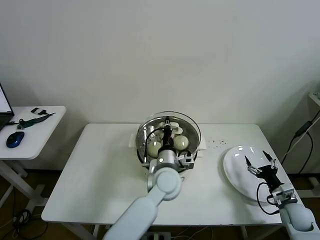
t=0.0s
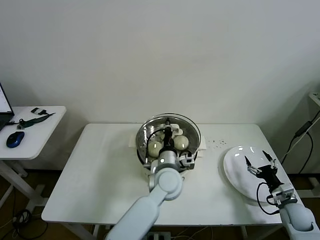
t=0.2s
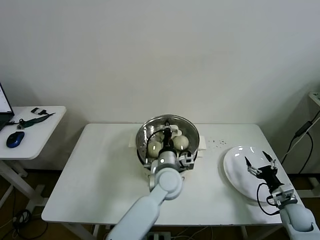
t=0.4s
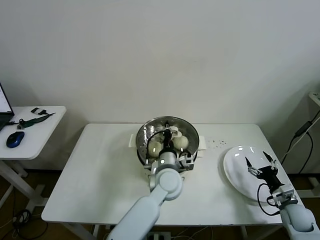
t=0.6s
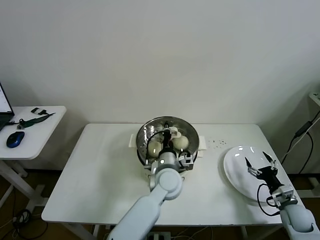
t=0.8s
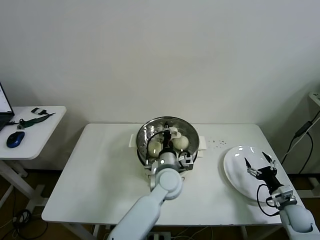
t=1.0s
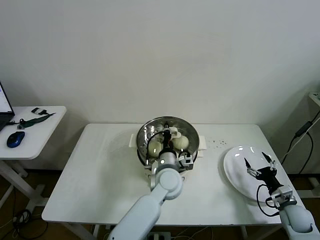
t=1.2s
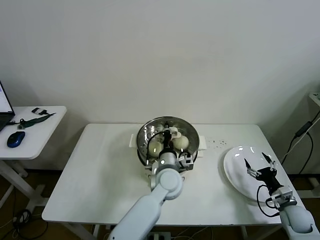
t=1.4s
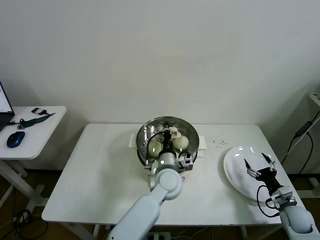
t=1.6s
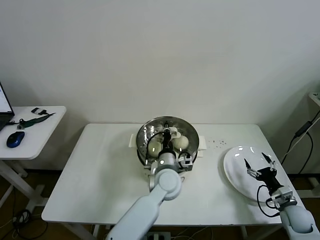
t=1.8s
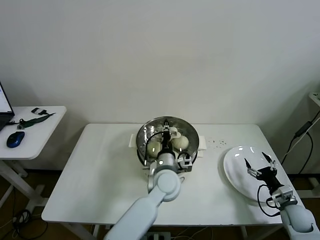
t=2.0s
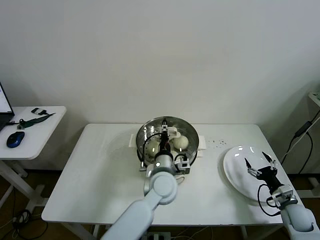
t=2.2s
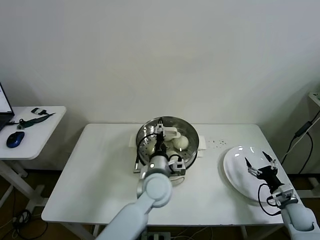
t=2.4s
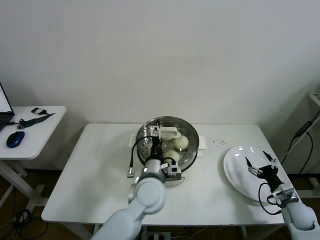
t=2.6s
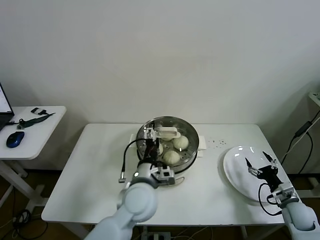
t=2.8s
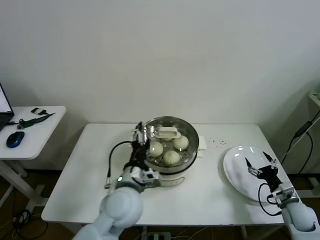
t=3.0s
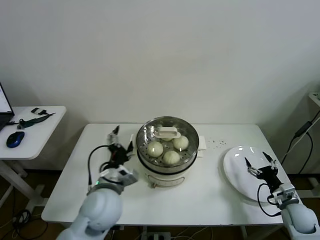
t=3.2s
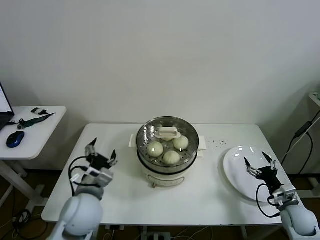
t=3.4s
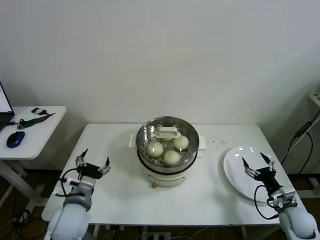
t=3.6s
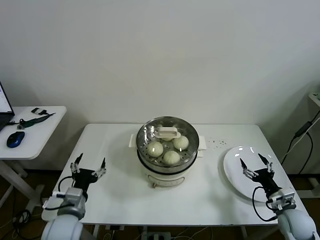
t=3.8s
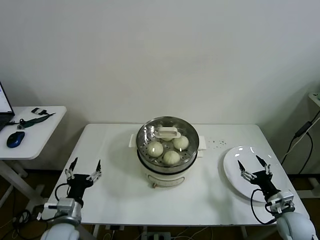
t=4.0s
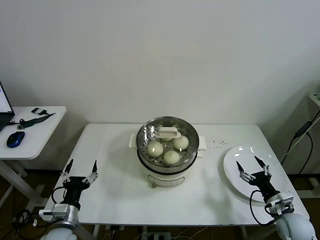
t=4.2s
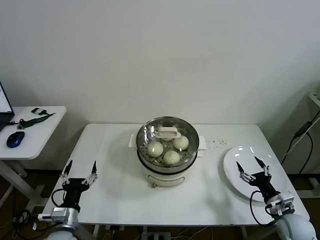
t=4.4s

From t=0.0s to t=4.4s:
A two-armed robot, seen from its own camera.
Task of the whole recording: take steamed baozi put them in steamer then cover it.
Step, from t=0.0s to t=2.0s: Place the pot lid on the steamer with left gripper.
From t=0.0s to t=1.4s: The grippers make only small movements.
From t=1.4s to t=3.0s: The left gripper is displaced to the left, backward and upward by about 15 cm, and opens its fingers.
From t=3.0s to t=4.4s: The left gripper travels to the left and downward by roughly 25 cm. The right gripper ends up about 5 cm from where it was.

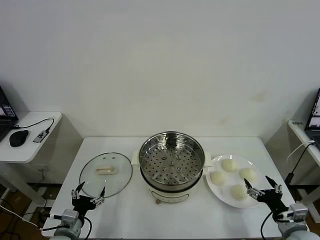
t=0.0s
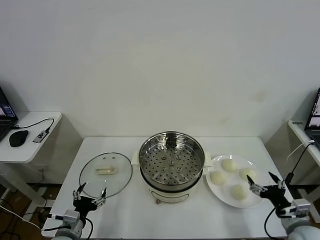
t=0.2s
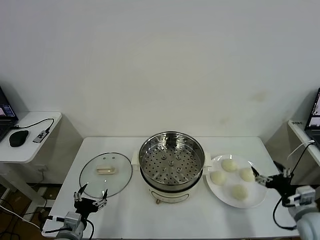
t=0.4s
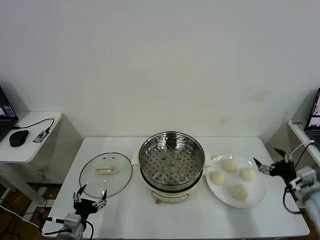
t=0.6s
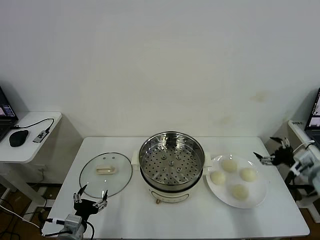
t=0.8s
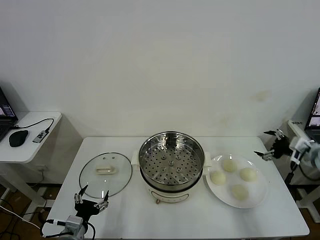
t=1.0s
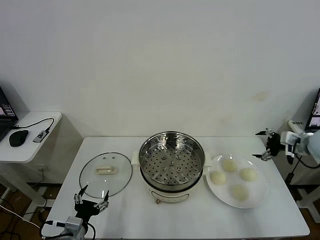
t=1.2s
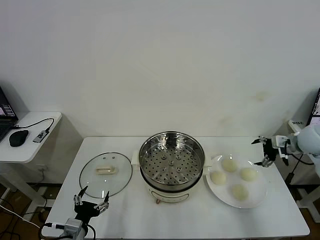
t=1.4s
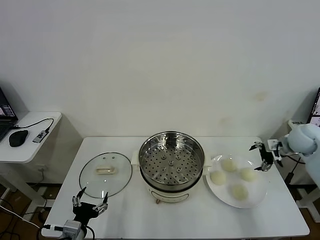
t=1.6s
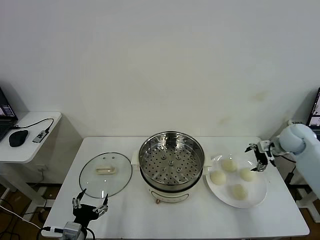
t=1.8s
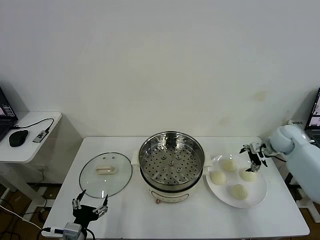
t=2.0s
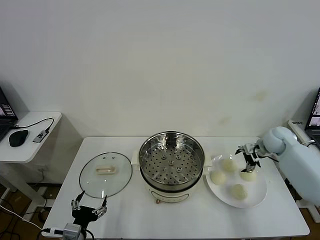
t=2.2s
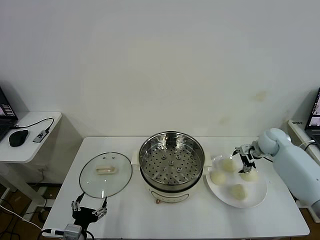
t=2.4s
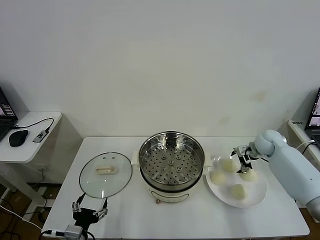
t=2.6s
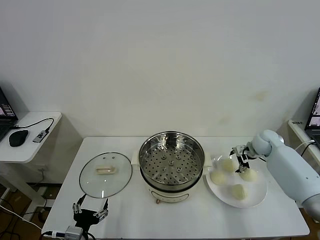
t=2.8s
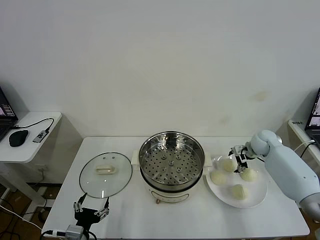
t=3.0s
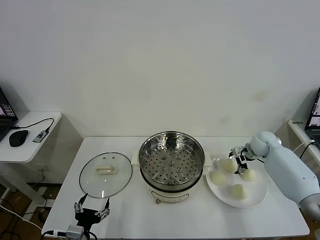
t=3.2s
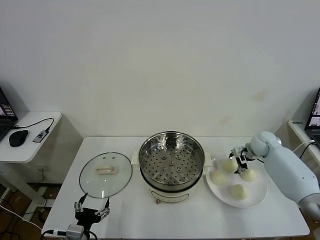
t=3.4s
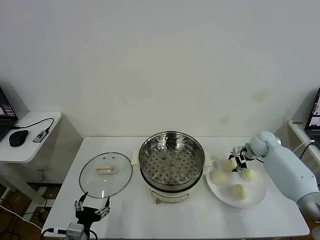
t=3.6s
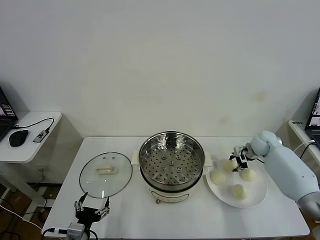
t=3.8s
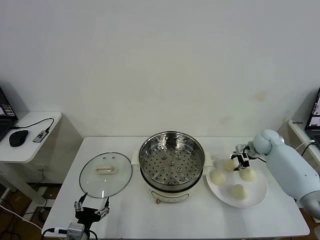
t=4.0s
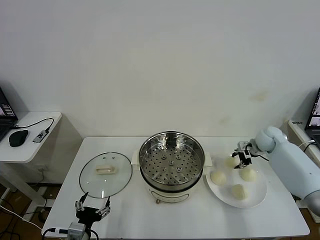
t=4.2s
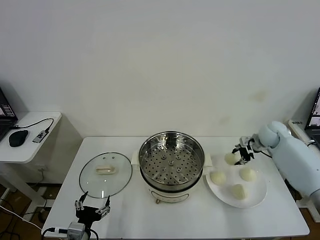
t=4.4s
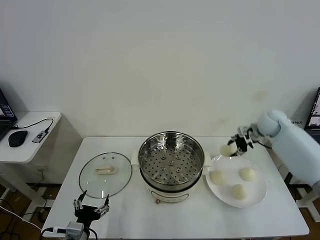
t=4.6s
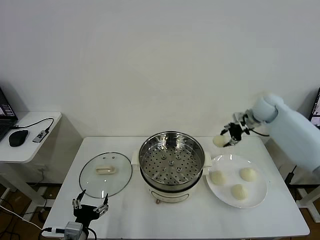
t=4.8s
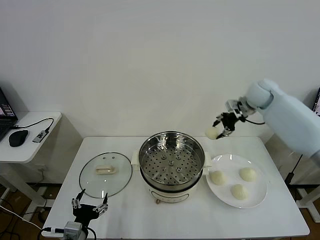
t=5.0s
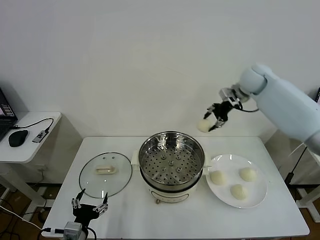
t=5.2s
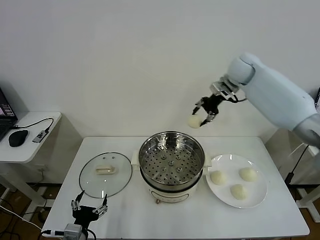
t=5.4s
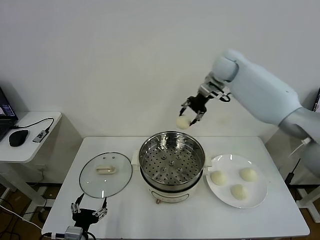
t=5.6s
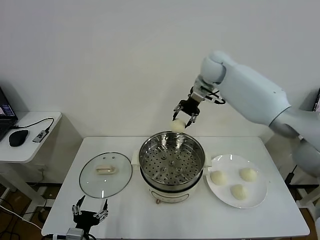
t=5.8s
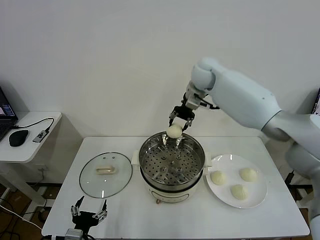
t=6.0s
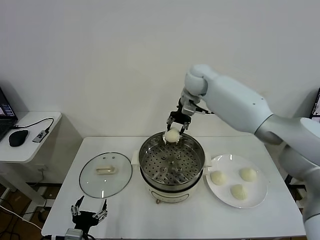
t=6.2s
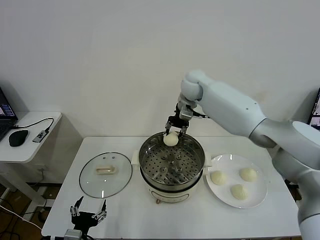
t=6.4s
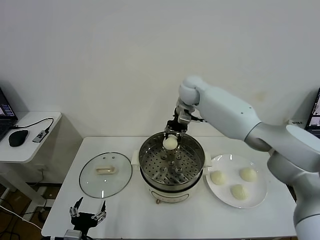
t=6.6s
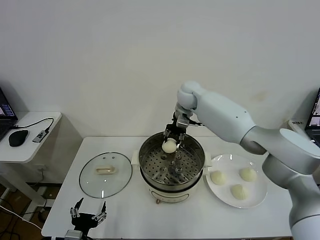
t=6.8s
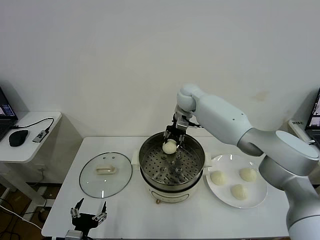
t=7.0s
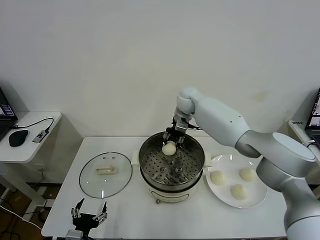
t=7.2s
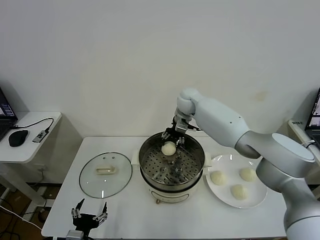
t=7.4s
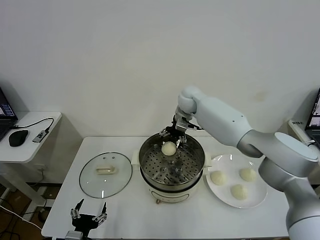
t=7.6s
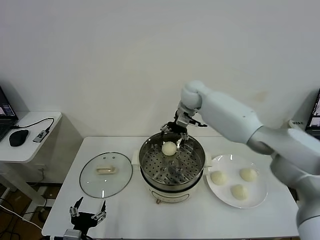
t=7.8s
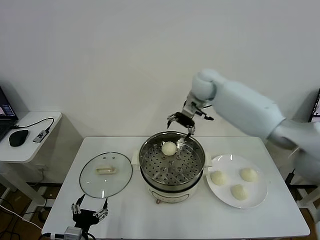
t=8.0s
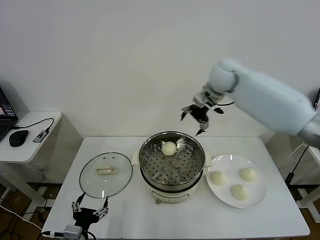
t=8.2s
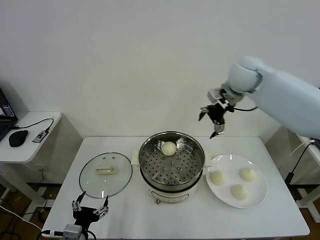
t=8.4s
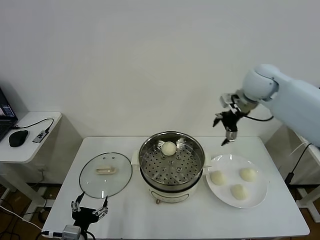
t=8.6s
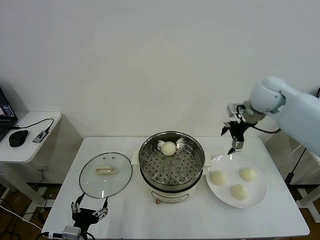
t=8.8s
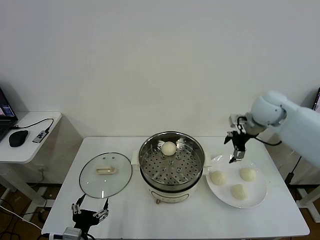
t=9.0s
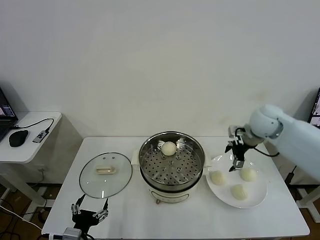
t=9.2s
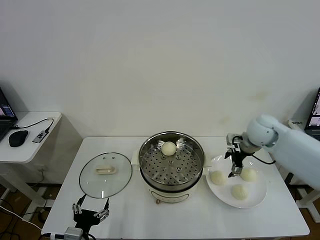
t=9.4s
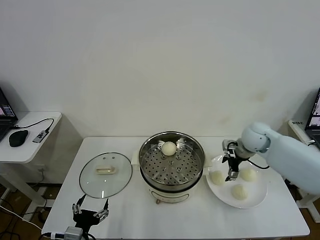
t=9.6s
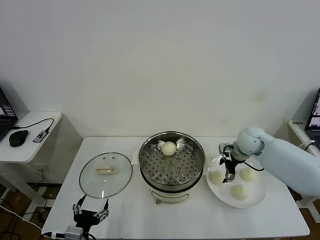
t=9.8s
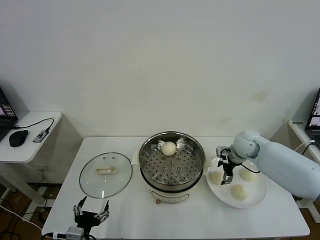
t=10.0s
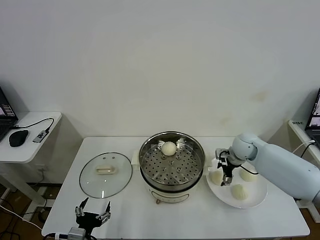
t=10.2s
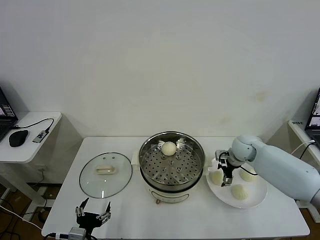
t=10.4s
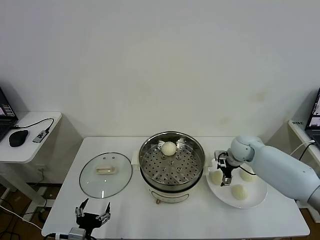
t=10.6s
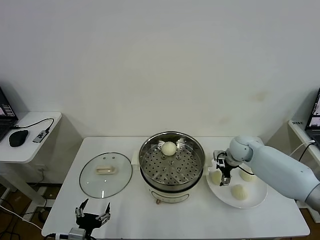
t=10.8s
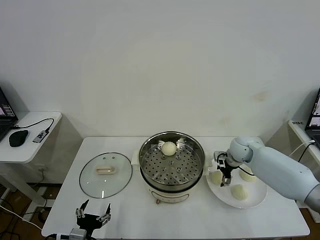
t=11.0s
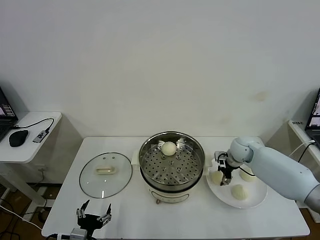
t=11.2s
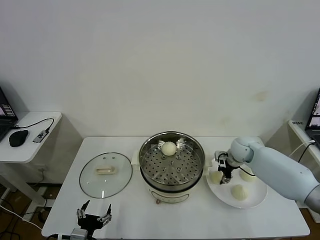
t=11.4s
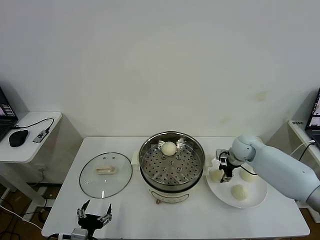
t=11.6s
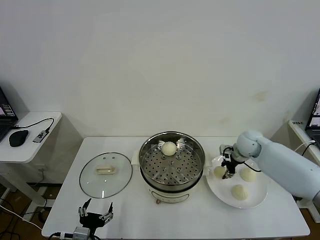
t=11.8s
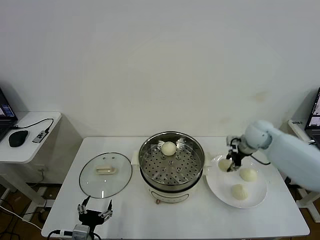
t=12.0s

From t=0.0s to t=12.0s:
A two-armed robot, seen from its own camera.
Task of the whole recording: take steamed baozi put them in steamer then cover it.
Step, from t=0.0s to t=3.6s: Grasp the baozi in the plate with right gripper.
Step, from t=3.8s to t=7.4s: Place the baozi on the steamer with right gripper.
Step, from t=7.8s to t=11.2s: Grasp the baozi in the plate with right gripper.
From t=1.6s to t=3.0s: The right gripper travels downward and to the left by about 10 cm.
From t=3.0s to t=4.4s: The right gripper goes about 10 cm upward, and closes.
From t=4.4s to t=6.0s: The right gripper travels to the left and upward by some 30 cm.
From t=6.0s to t=7.6s: The right gripper goes about 5 cm downward, and opens.
From t=7.6s to t=9.0s: The right gripper travels to the right and backward by approximately 25 cm.
From t=9.0s to t=10.4s: The right gripper moves downward, approximately 15 cm.
From t=10.4s to t=12.0s: The right gripper goes about 10 cm upward, and closes up.

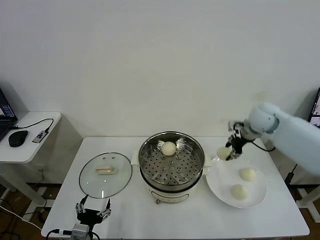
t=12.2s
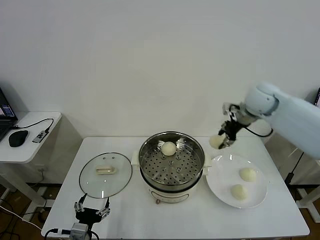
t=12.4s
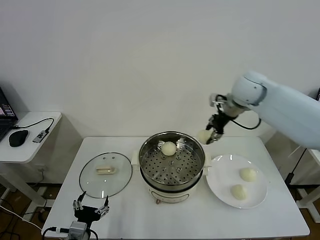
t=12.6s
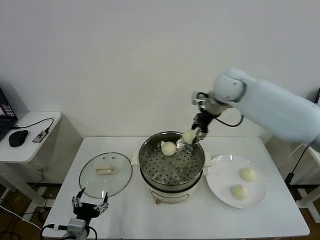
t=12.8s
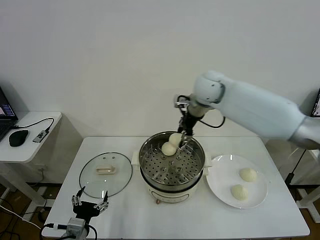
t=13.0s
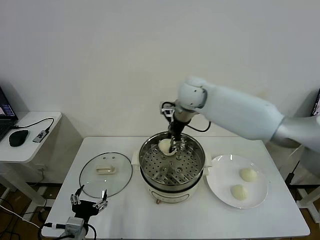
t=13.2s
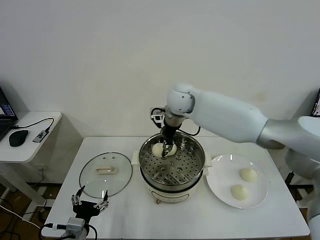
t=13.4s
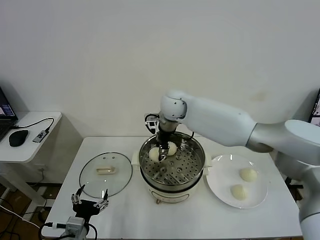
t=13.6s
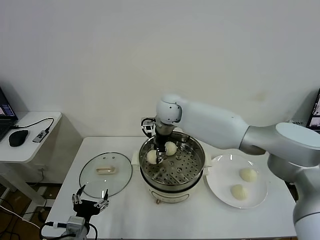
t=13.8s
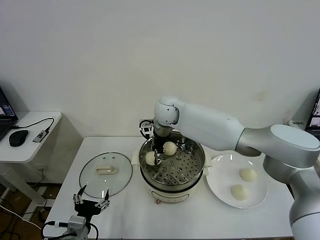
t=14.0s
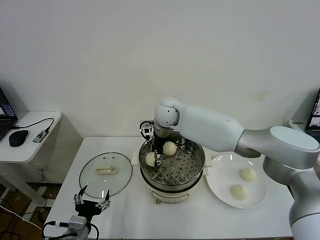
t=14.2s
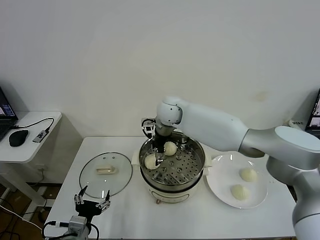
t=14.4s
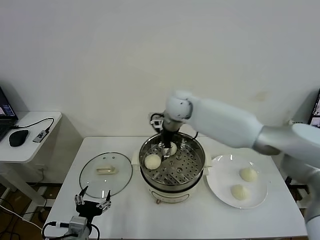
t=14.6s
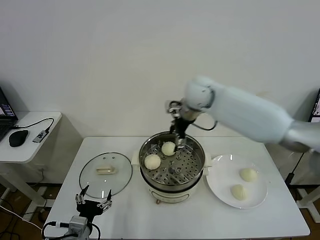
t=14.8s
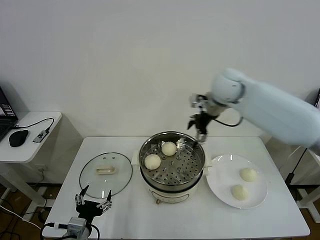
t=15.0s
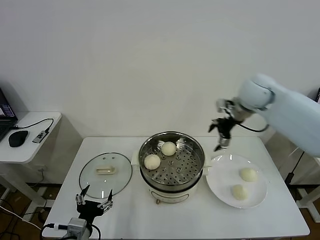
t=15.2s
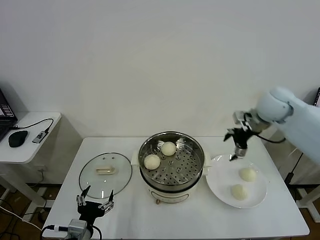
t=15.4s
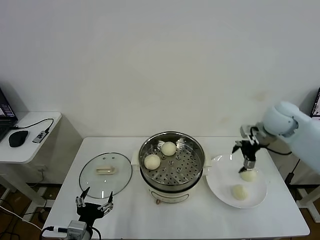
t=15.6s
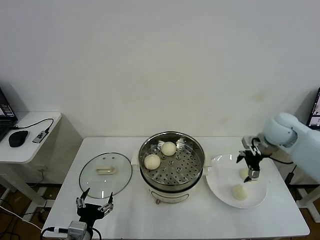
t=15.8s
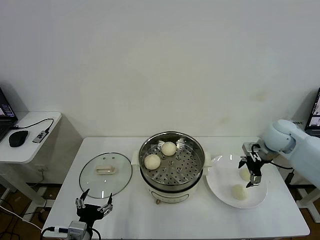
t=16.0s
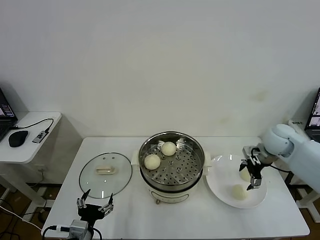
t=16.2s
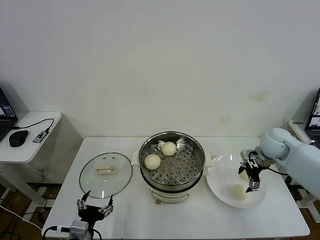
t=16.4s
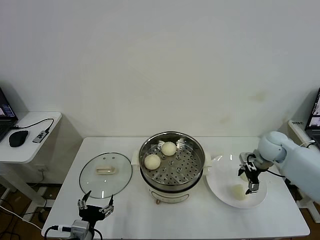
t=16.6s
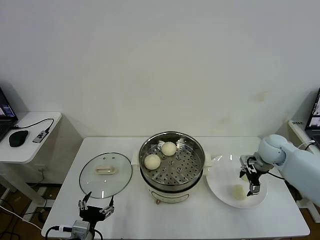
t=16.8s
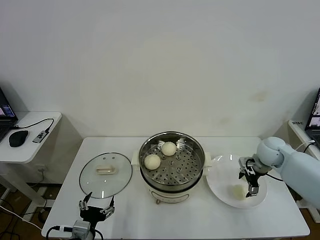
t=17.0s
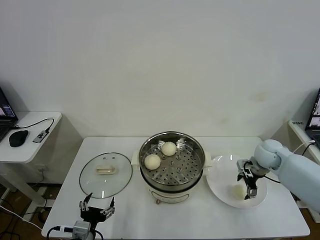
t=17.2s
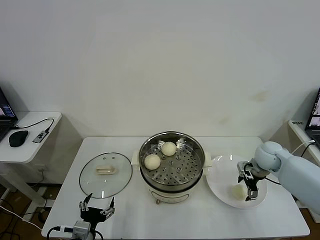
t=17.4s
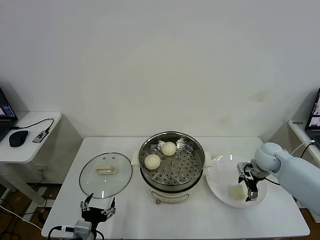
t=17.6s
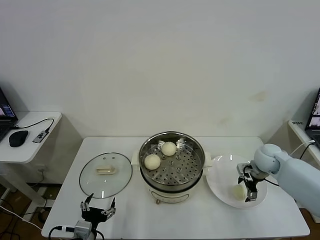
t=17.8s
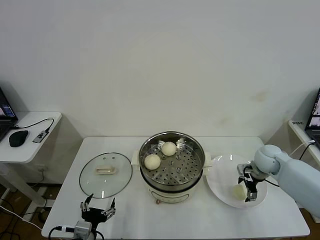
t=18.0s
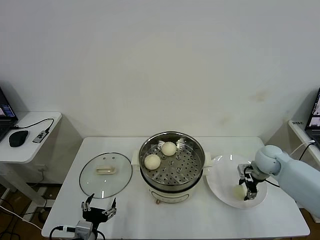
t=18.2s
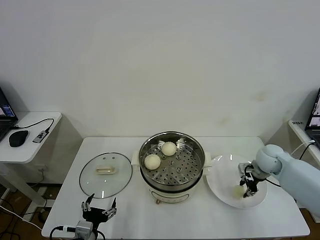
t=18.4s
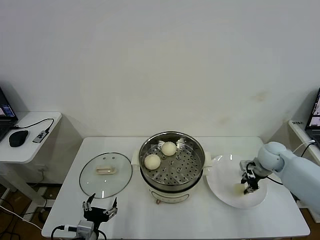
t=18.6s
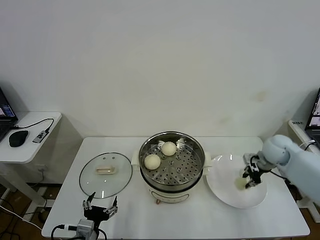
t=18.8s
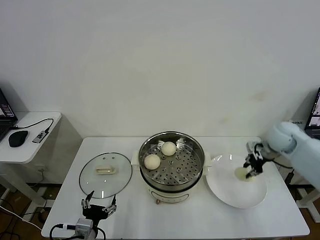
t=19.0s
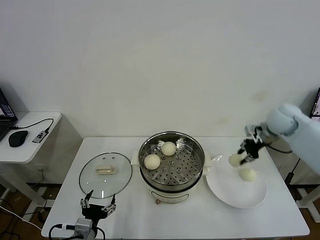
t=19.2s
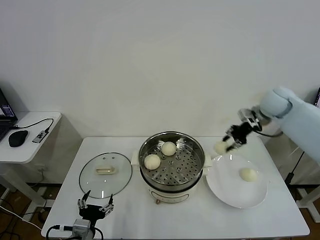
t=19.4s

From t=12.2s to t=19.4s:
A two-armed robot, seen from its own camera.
Task of the whole recording: take steamed baozi put them in steamer then cover it.
Step, from t=12.2s to t=14.4s: Place the baozi on the steamer with right gripper.
Step, from t=14.6s to t=18.4s: Grasp the baozi in the plate with right gripper.
From t=12.2s to t=13.6s: The right gripper is displaced to the left by some 30 cm.
From t=13.6s to t=15.0s: The right gripper heads to the right, covering roughly 25 cm, and opens its fingers.
From t=15.0s to t=16.6s: The right gripper moves downward and to the right, approximately 25 cm.
From t=16.6s to t=18.0s: The grippers make only small movements.
From t=18.0s to t=19.4s: The right gripper travels upward and forward by approximately 25 cm, and closes up.
